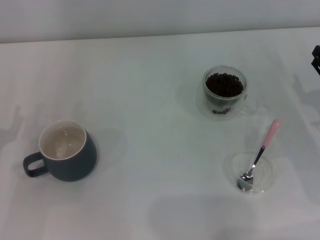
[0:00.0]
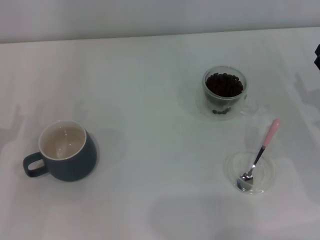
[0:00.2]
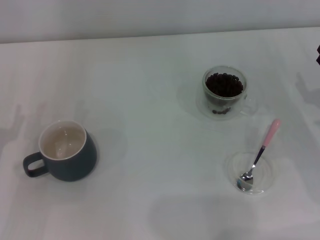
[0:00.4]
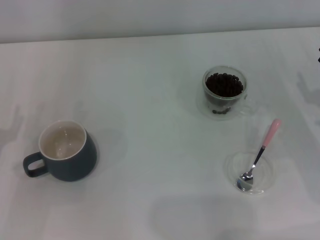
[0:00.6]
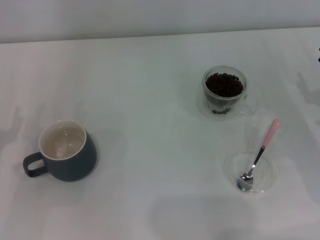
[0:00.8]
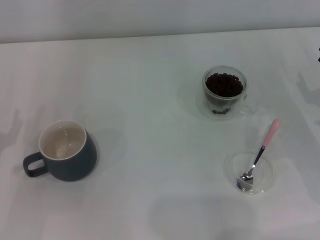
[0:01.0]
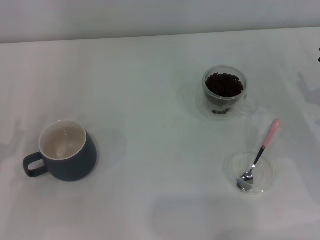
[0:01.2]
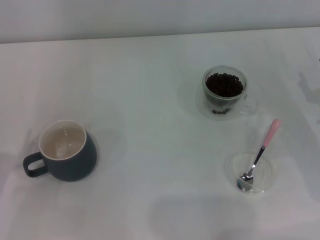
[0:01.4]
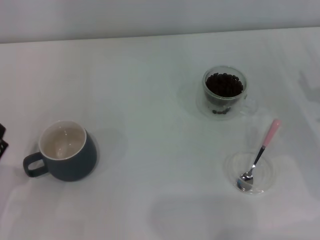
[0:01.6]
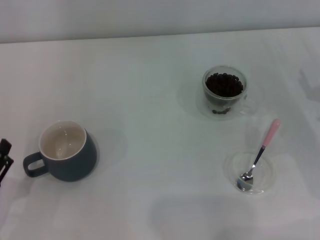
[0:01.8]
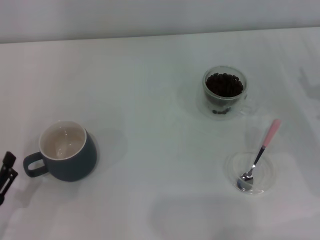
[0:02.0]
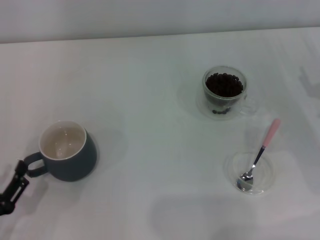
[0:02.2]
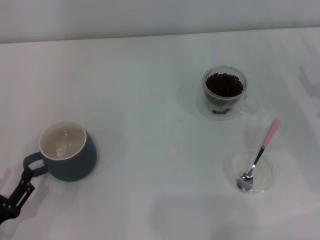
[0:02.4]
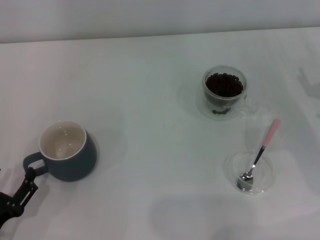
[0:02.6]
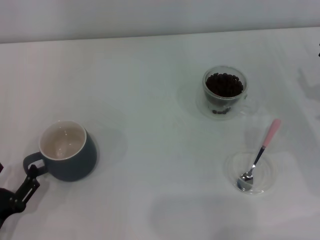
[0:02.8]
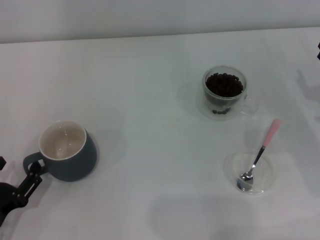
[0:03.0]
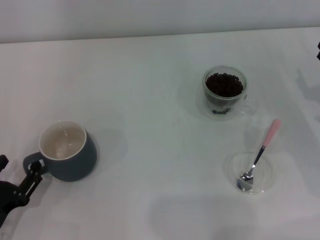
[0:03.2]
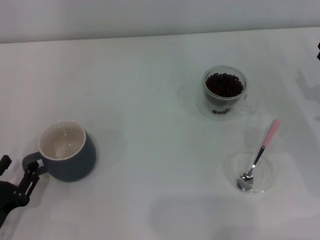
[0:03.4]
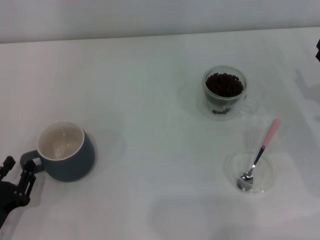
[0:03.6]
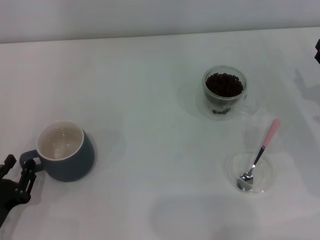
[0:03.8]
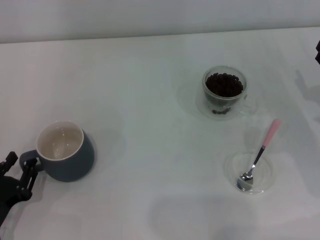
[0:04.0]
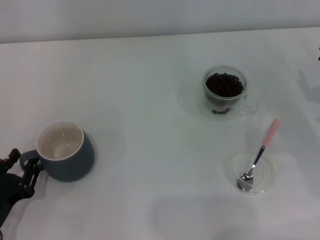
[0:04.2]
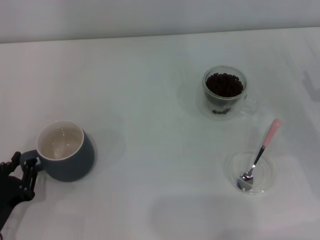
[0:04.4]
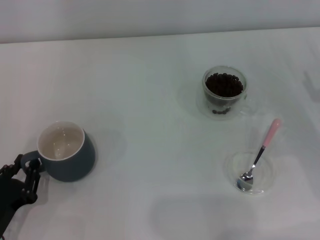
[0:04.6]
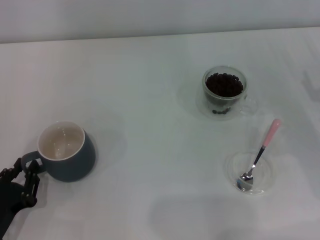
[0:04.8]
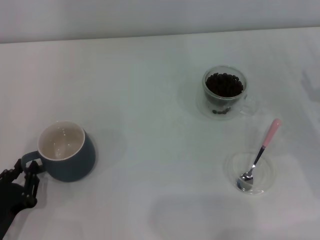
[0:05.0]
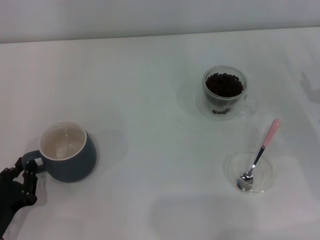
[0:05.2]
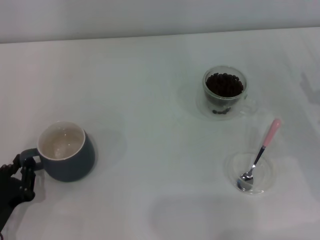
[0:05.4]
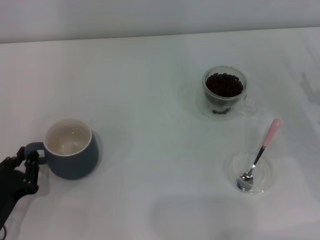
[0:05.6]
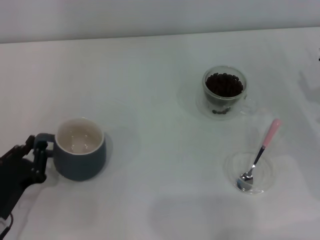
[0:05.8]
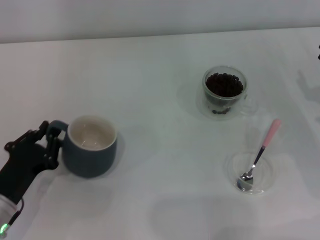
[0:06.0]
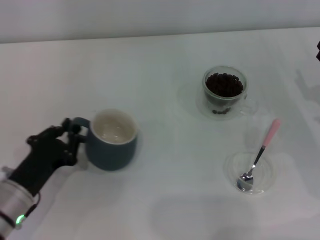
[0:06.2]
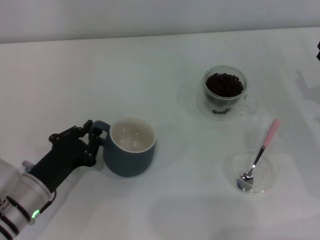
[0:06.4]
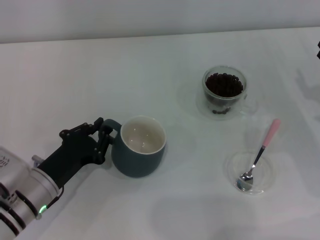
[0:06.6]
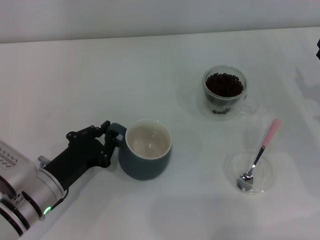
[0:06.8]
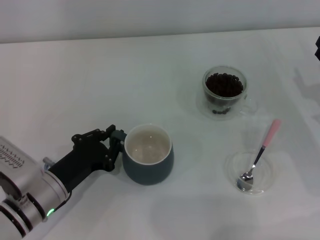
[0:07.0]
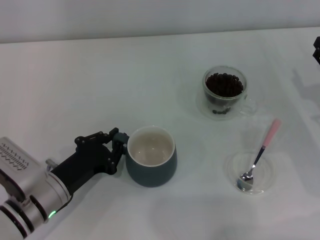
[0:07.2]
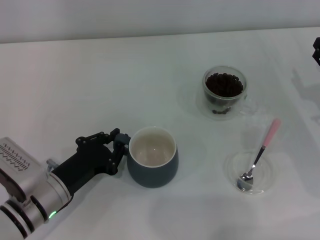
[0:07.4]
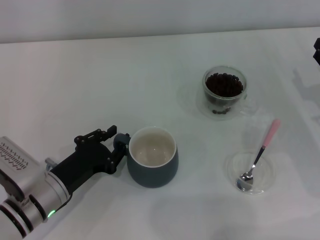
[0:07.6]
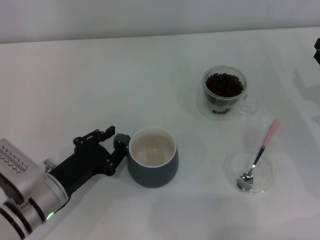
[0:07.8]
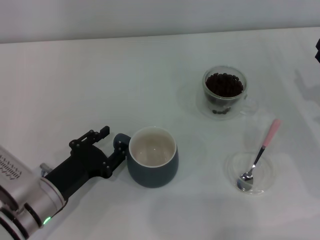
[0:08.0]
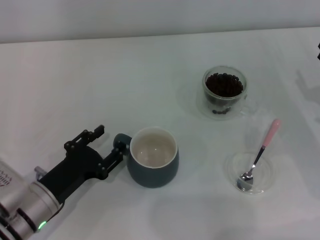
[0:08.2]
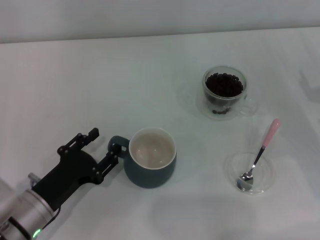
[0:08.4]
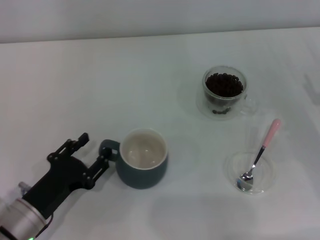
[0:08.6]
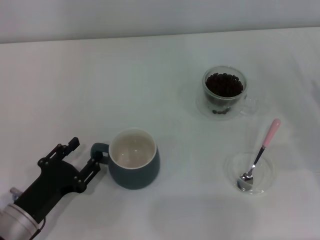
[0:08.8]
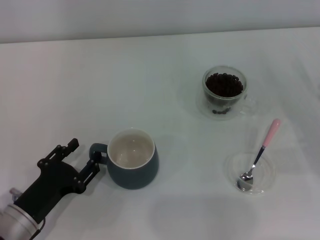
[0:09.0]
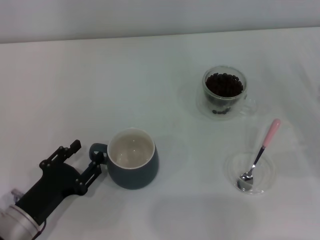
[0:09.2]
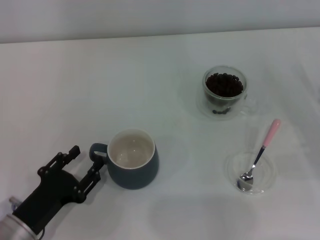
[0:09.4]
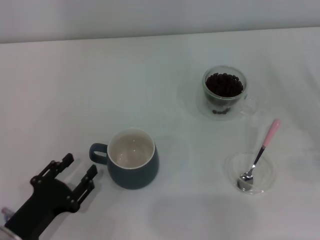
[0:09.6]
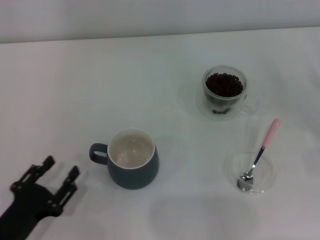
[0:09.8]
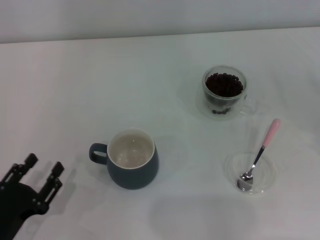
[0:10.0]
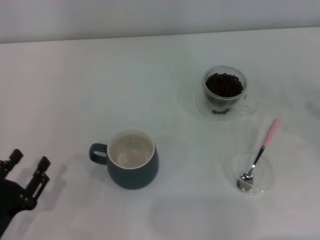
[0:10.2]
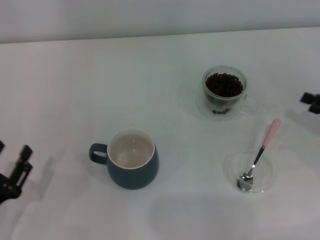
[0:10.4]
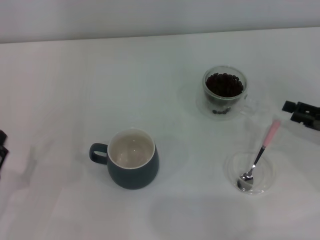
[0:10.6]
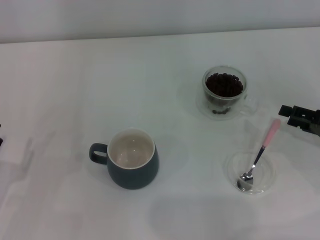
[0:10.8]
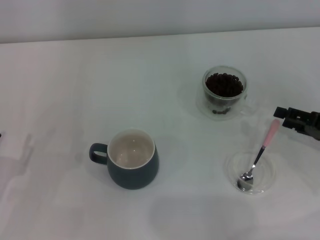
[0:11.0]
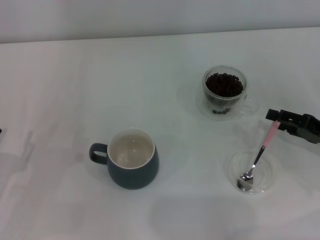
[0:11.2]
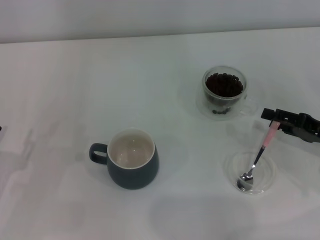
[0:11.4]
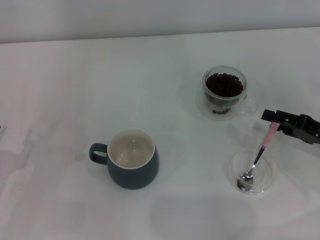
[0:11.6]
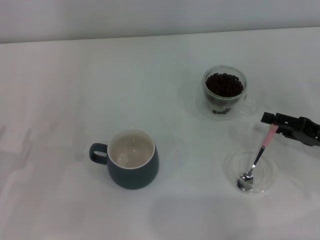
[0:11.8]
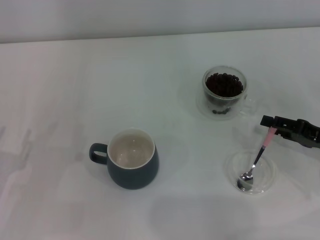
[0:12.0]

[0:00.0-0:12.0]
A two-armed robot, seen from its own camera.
Task of the whole recording: Use a pink spoon to take out the coffee beans from the glass and pour them into the gray cup.
Step, 0:00.0 to 0:09.4: Move the cup to the center of view with the left gripper.
0:01.6 to 0:03.0: The grippers move only a little.
0:03.0 to 0:04.4: The left gripper closes its fingers.
0:04.4 to 0:06.0: The left gripper ends up approximately 5 cm from where it was.
0:06.0 to 0:07.6: The left gripper is displaced to the right by some 5 cm.
0:07.6 to 0:09.0: The left gripper shifts by some 5 cm, and opens its fingers, while the right gripper shifts by approximately 5 cm.
0:09.0 to 0:10.4: The left gripper shifts some 5 cm to the left.
0:10.4 to 0:12.0: The left gripper shifts by some 5 cm. The right gripper shifts approximately 5 cm to the left.

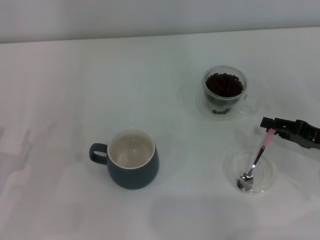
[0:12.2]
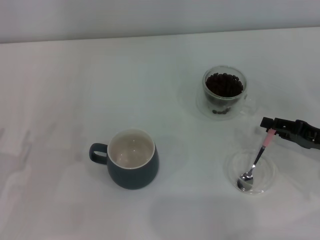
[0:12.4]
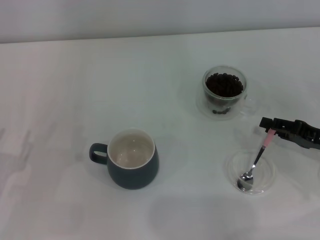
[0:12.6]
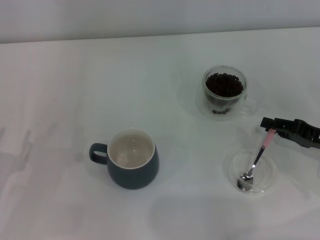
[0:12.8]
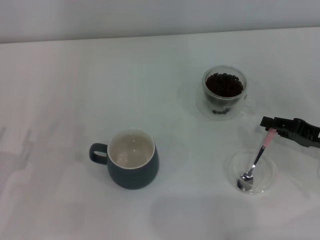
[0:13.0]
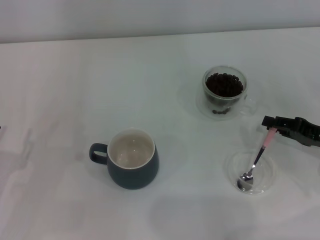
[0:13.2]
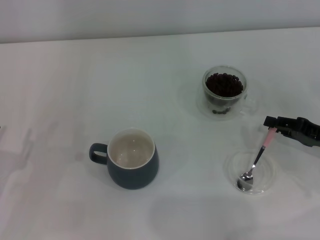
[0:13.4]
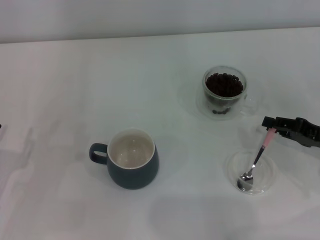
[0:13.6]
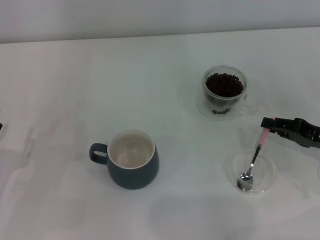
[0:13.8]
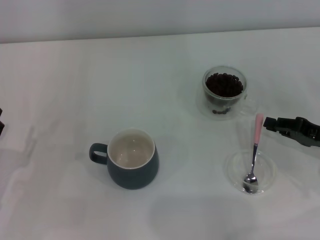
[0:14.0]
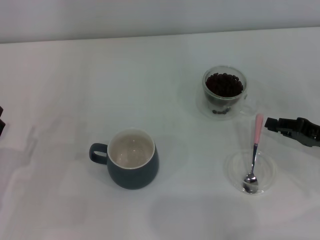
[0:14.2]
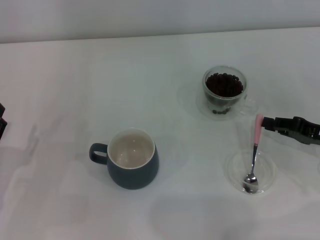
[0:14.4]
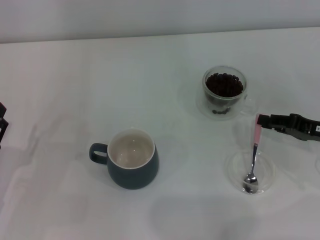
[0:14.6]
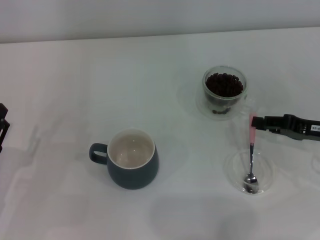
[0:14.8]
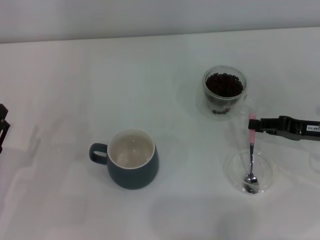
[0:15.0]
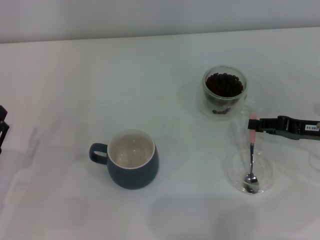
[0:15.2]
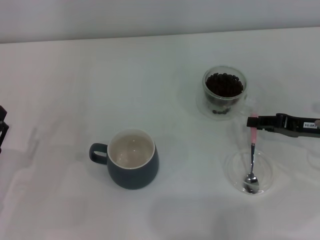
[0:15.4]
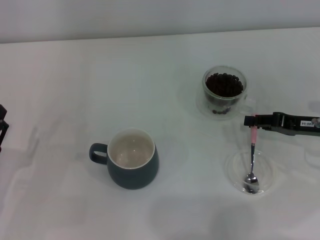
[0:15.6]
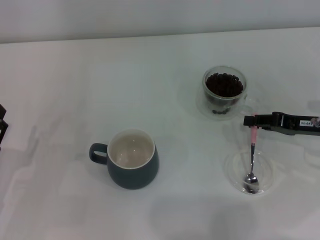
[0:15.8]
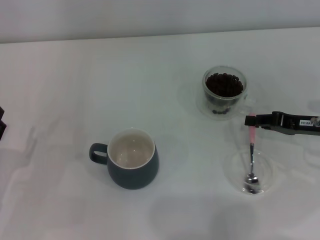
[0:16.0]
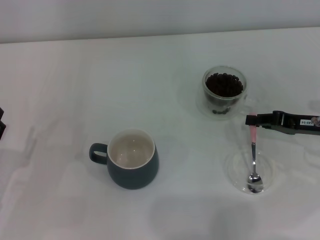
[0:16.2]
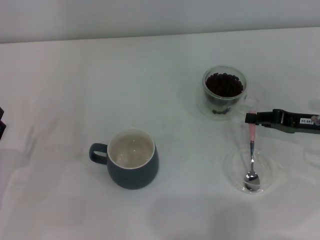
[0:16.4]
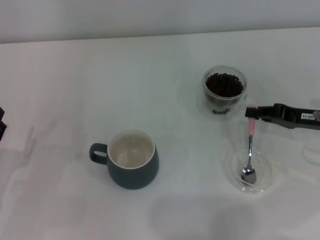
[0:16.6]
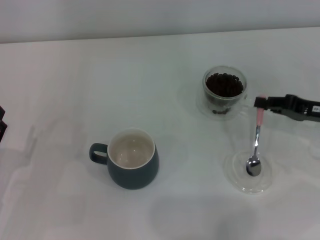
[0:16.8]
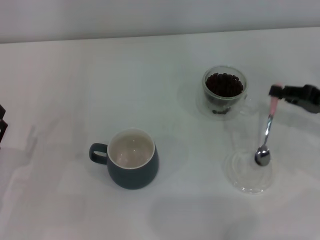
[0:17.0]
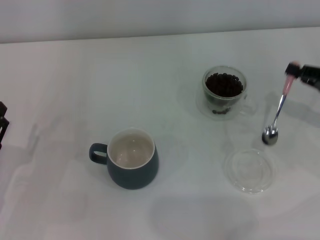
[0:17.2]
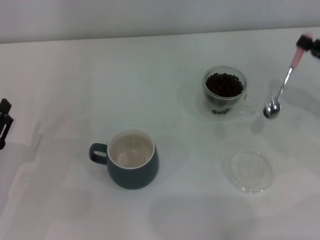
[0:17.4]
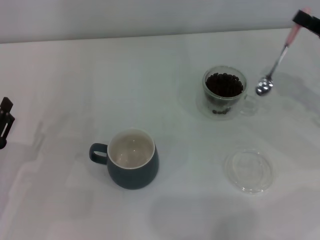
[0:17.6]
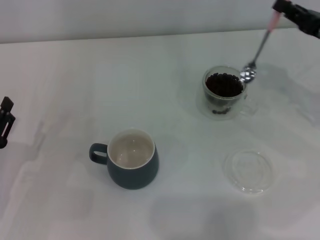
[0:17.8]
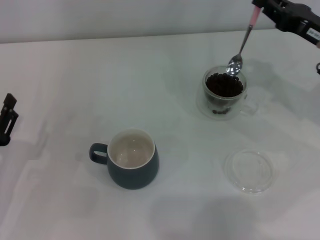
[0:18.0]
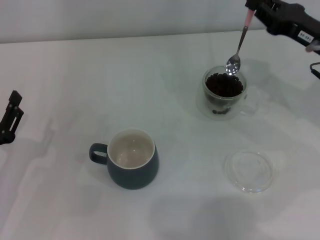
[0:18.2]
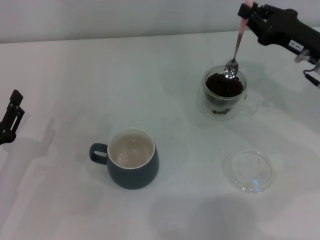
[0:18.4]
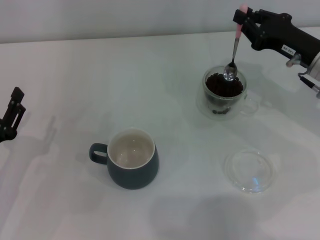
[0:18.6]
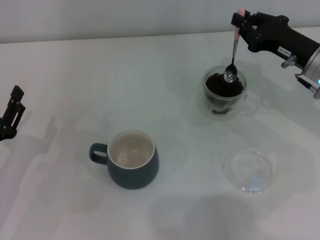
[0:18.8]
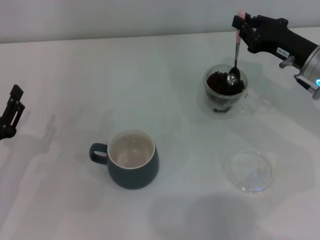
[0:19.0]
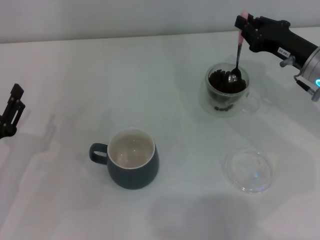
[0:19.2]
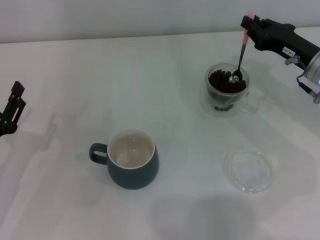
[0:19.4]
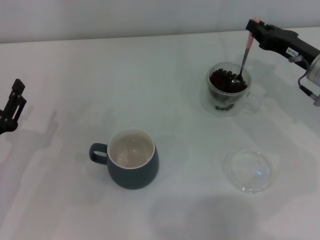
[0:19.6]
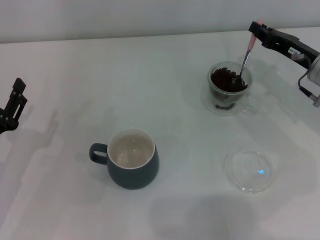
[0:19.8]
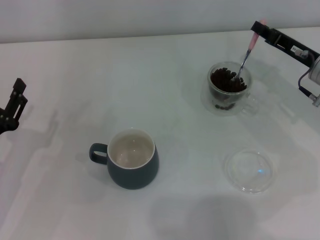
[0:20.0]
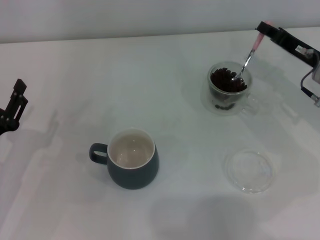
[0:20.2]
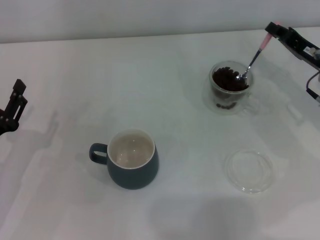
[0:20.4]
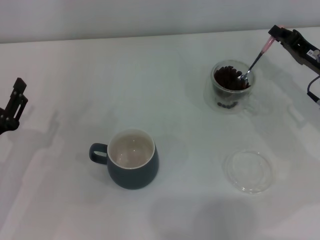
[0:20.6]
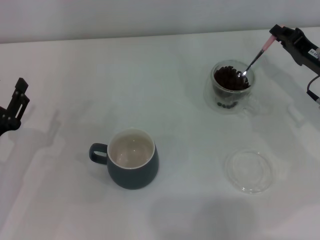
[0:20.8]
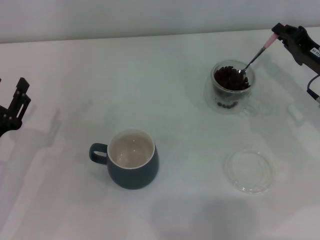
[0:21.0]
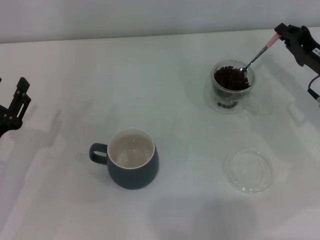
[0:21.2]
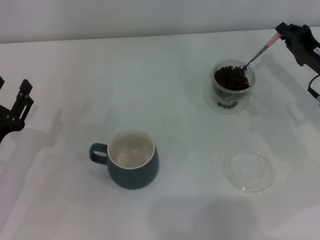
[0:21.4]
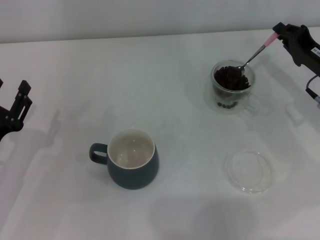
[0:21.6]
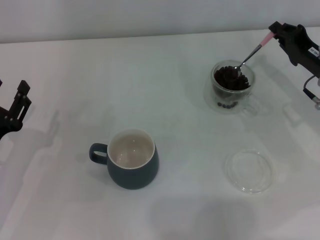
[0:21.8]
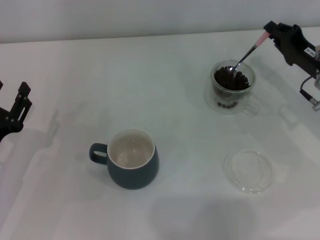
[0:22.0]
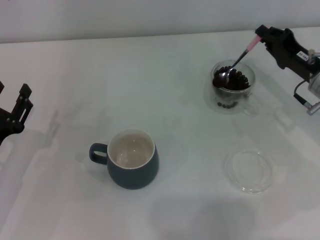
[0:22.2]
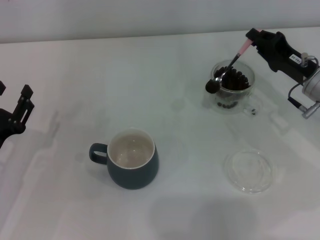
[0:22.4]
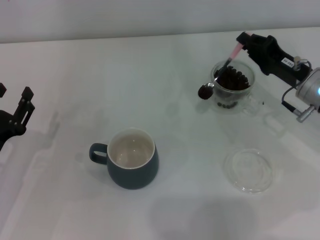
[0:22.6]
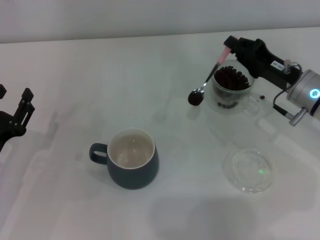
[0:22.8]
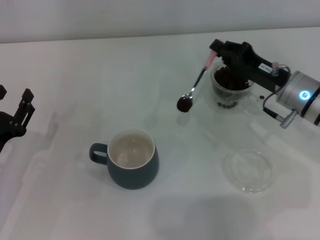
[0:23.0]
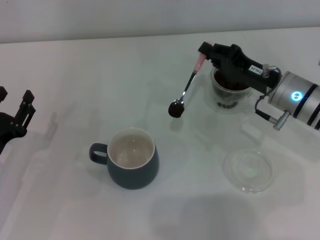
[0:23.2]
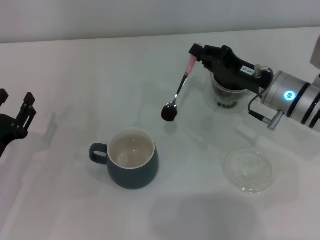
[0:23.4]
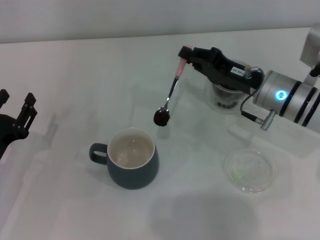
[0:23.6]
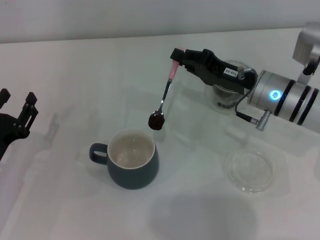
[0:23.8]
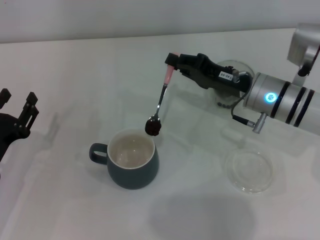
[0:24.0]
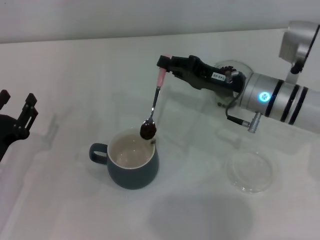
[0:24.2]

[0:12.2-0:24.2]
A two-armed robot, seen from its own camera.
Task of the whole recording: Use a pink spoon to take out the coffee beans from the glass and pour them into the gray cup.
Step, 0:12.2 to 0:17.0: Pick up the spoon with the right gripper.
0:13.8 to 0:16.6: There are only small adjustments of the grippers.
0:16.6 to 0:18.2: The right gripper moves upward and forward, approximately 10 cm.
0:21.2 to 0:22.6: The grippers move only a little.
0:22.6 to 0:24.2: The right gripper heads to the left, covering some 10 cm.
